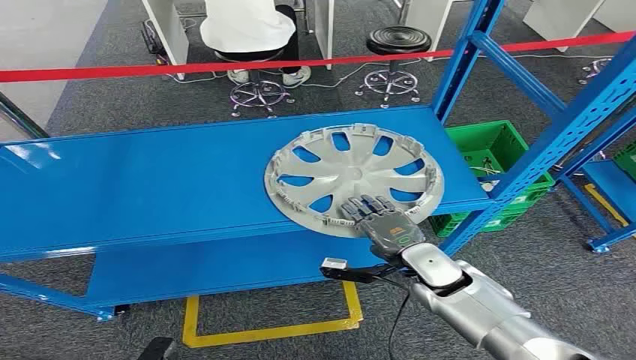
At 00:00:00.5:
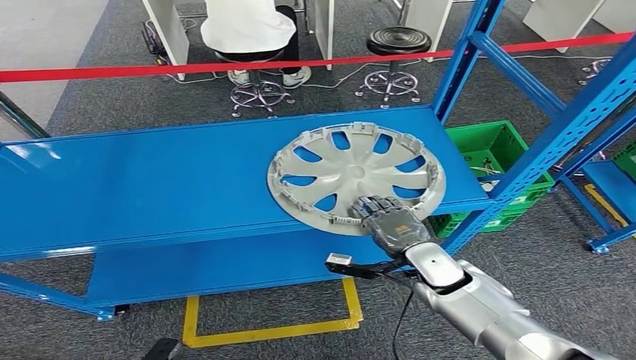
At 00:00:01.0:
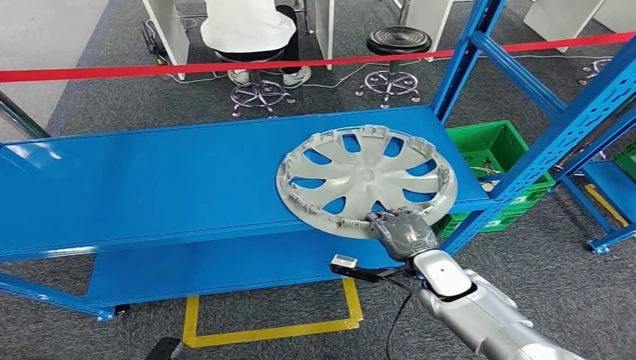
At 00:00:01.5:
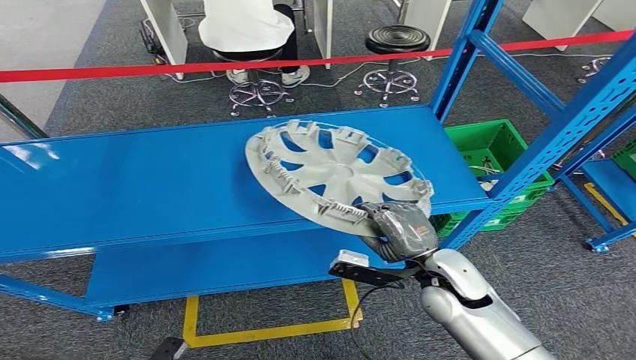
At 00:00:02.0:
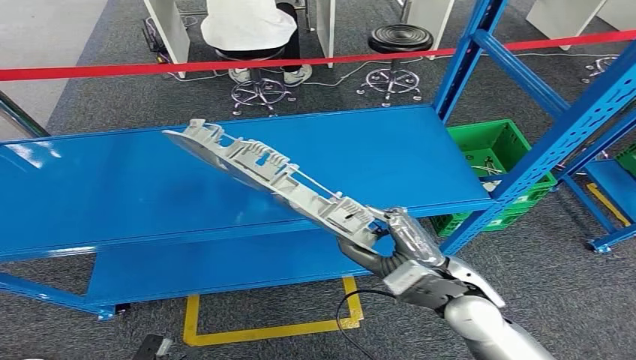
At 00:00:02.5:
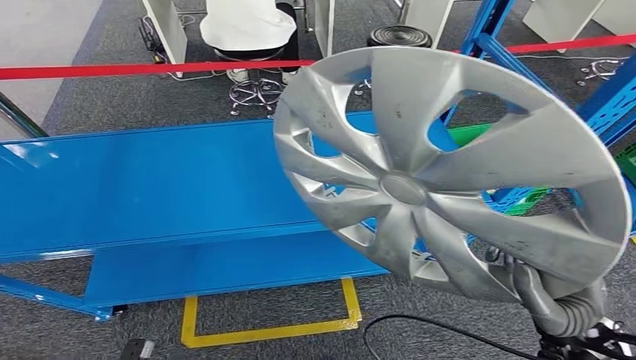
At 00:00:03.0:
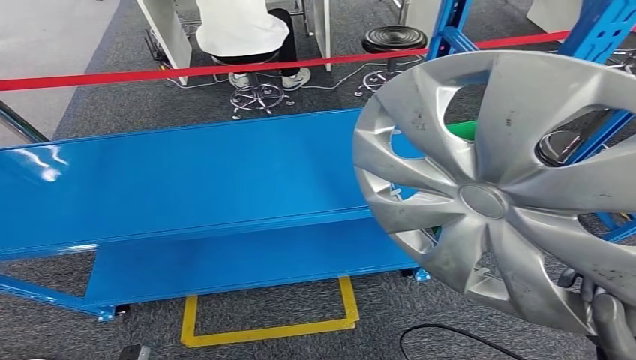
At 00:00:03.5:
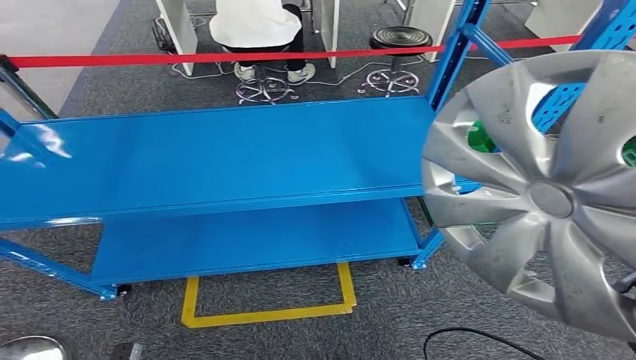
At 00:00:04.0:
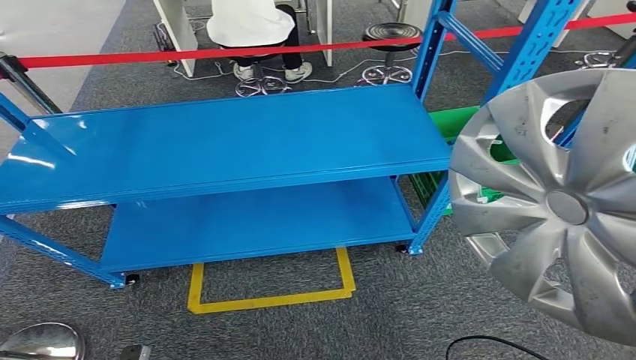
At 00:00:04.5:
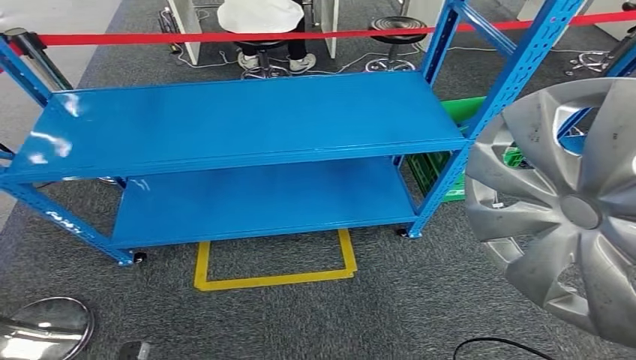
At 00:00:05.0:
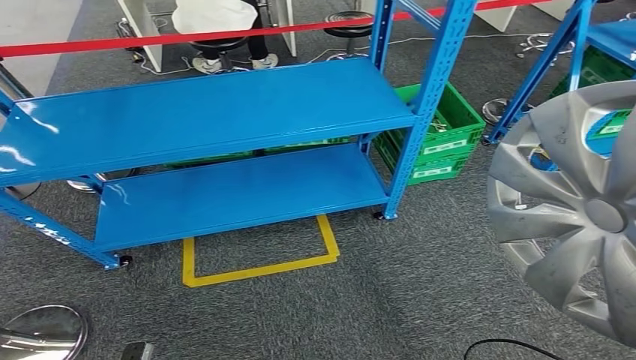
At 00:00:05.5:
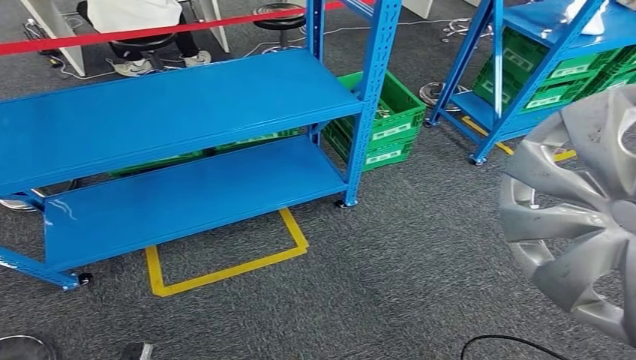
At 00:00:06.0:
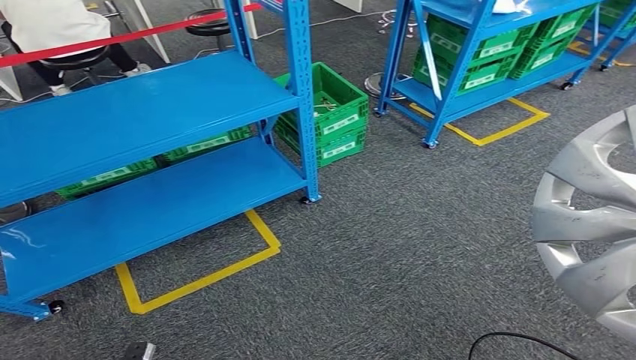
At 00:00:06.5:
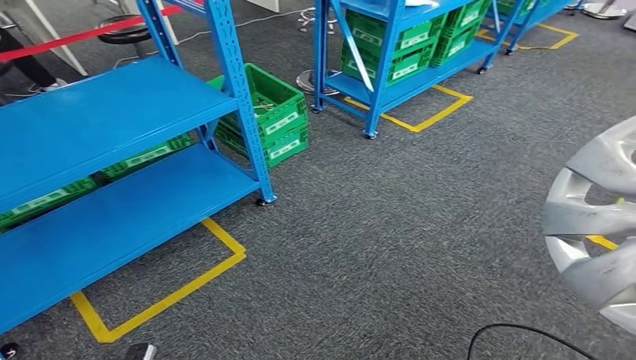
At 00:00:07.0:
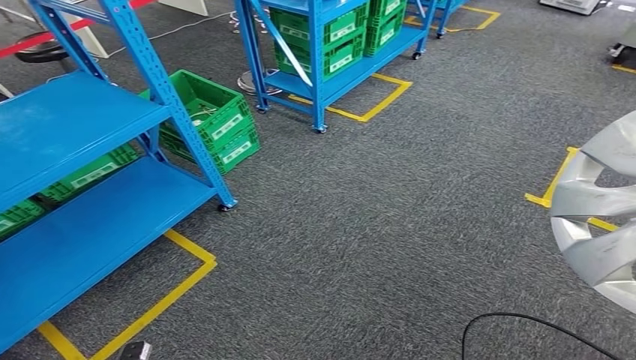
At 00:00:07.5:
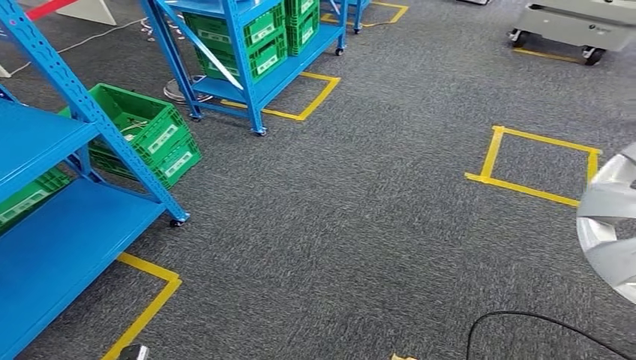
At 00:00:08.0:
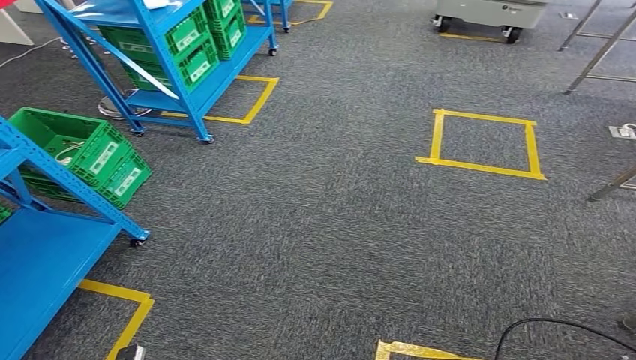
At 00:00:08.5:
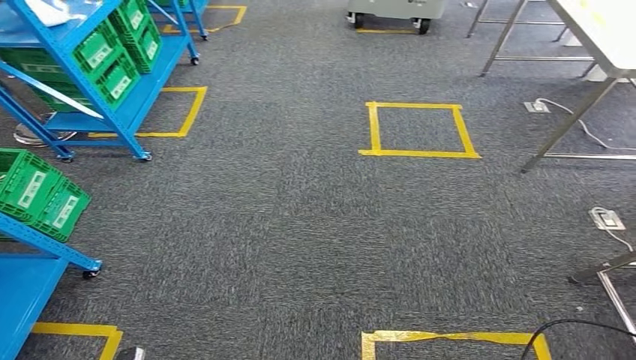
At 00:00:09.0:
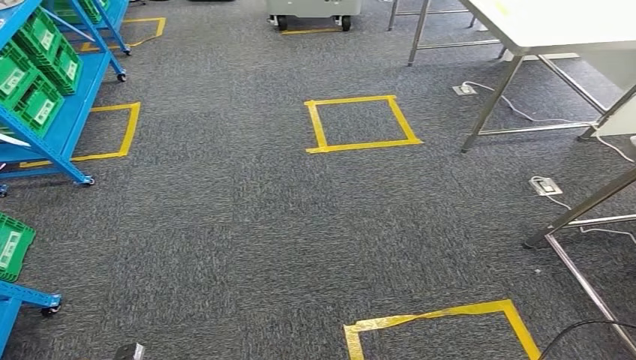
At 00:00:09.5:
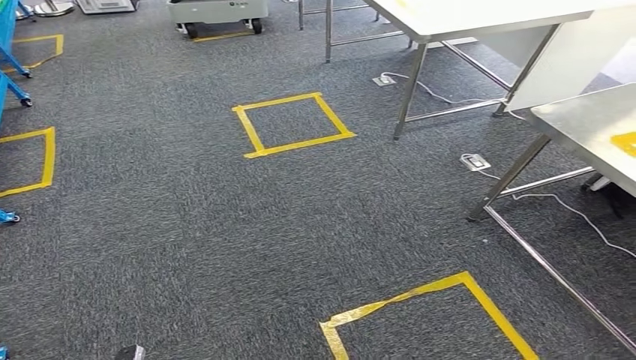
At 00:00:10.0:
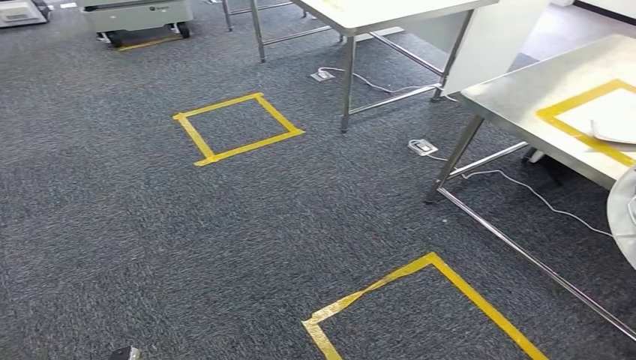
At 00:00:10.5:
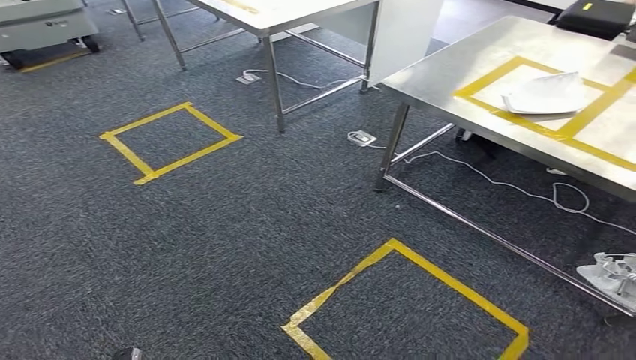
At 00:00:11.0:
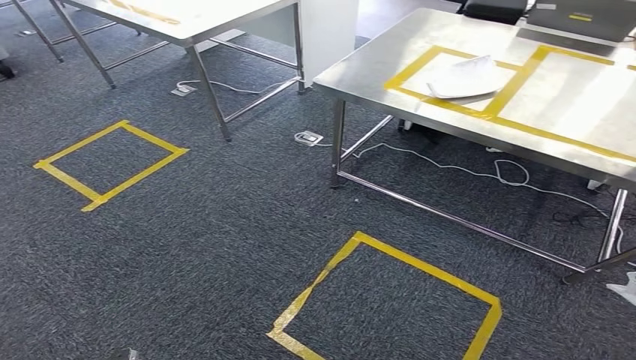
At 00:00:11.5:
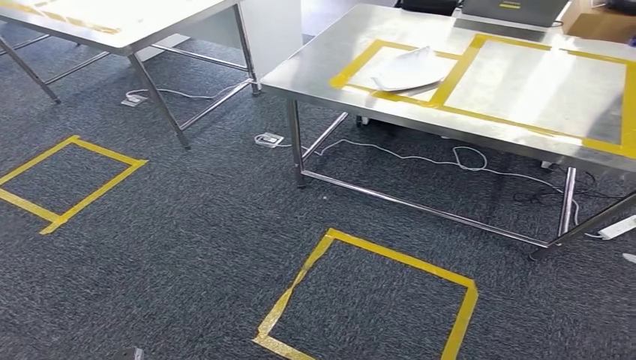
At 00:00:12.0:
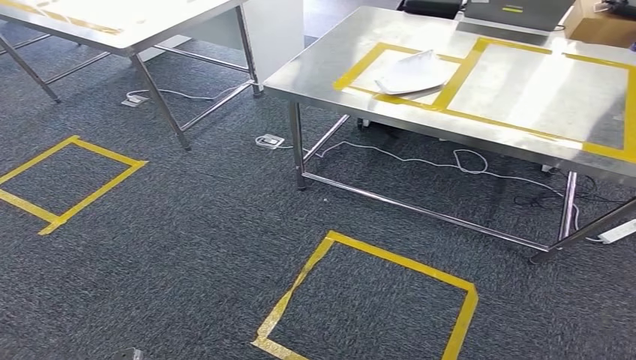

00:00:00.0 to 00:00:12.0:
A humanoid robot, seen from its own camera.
Step, 00:00:00.0 to 00:00:04.0: Pick up the small parts from the shelf.

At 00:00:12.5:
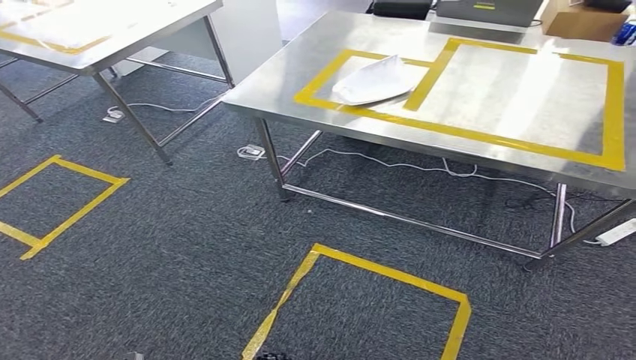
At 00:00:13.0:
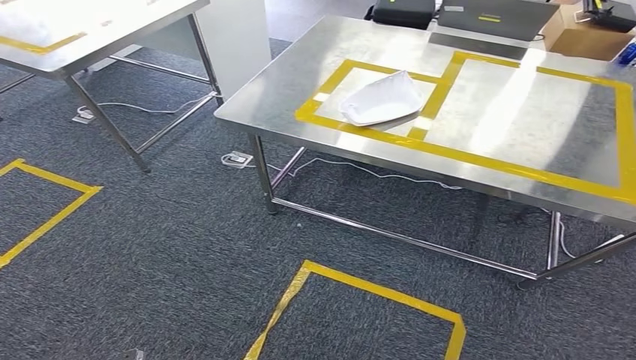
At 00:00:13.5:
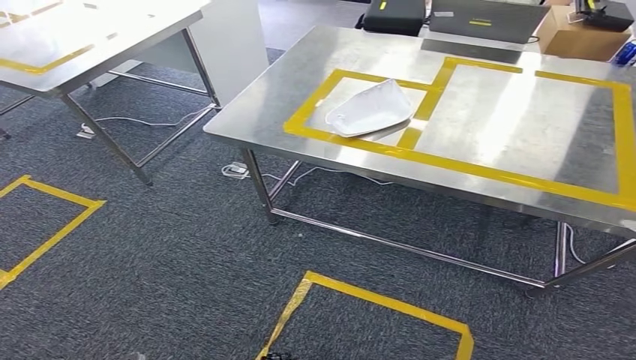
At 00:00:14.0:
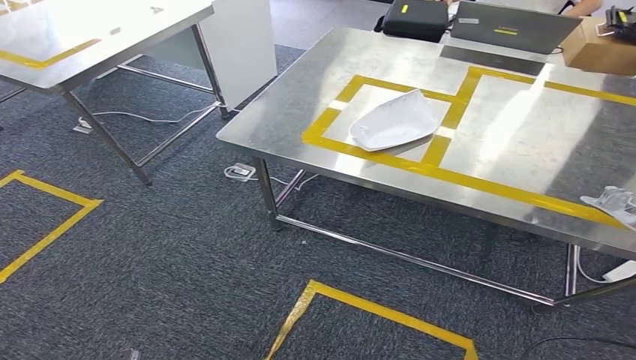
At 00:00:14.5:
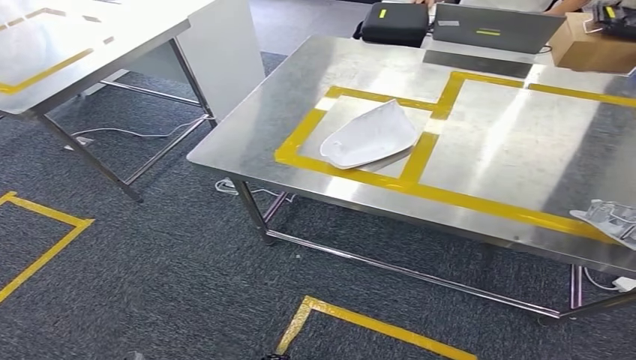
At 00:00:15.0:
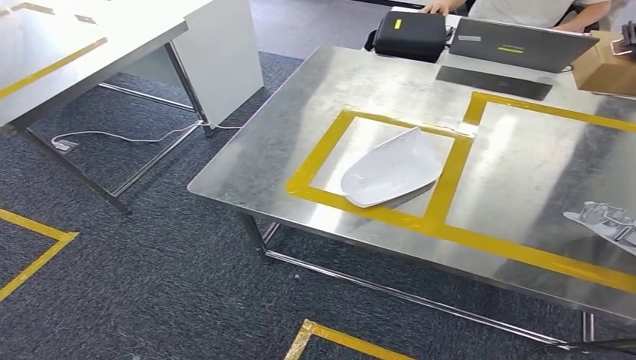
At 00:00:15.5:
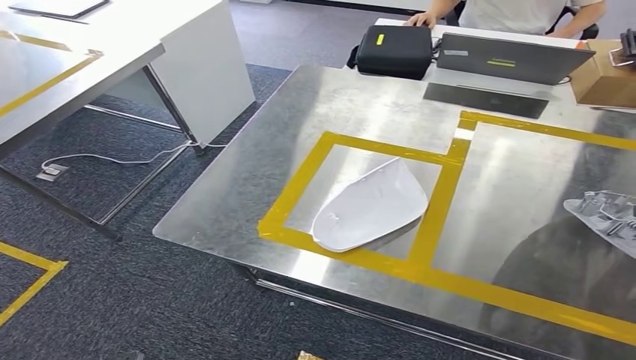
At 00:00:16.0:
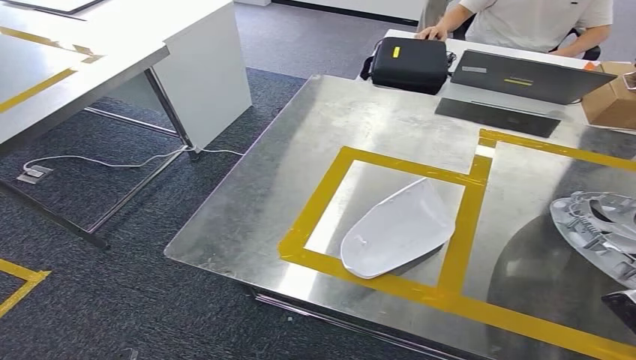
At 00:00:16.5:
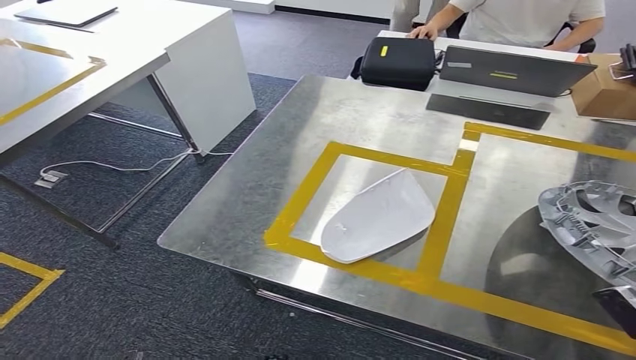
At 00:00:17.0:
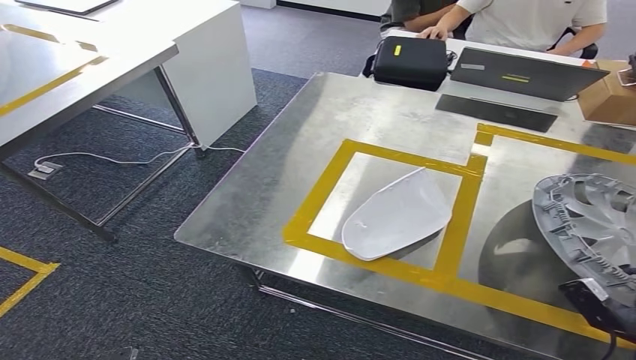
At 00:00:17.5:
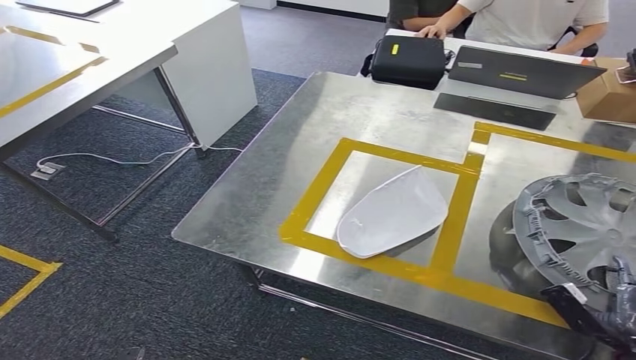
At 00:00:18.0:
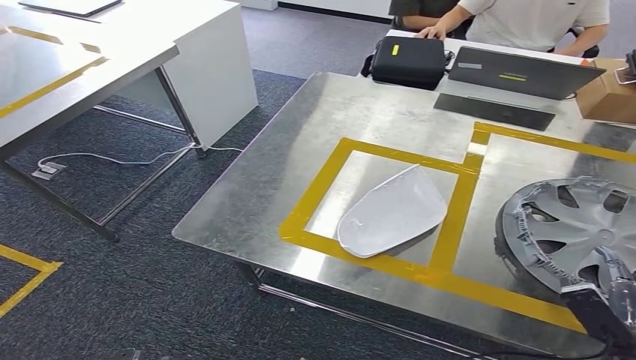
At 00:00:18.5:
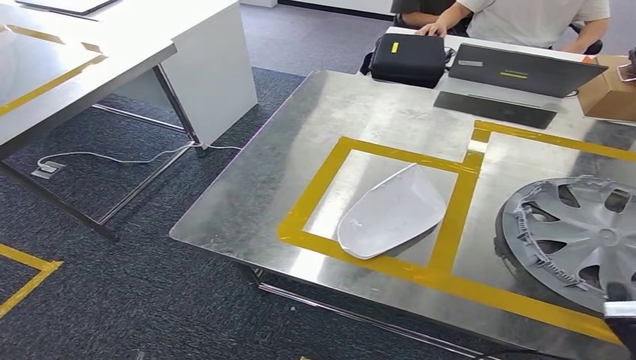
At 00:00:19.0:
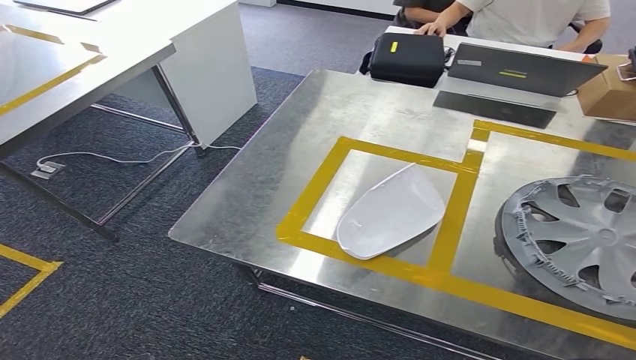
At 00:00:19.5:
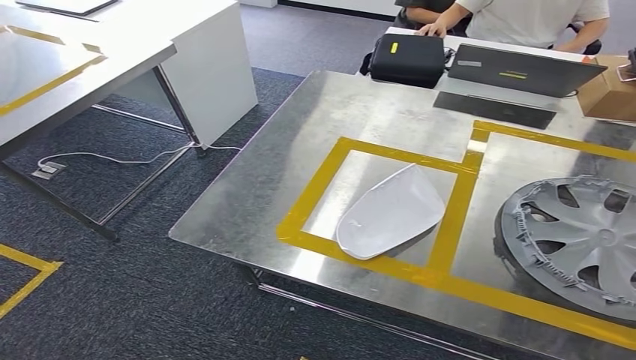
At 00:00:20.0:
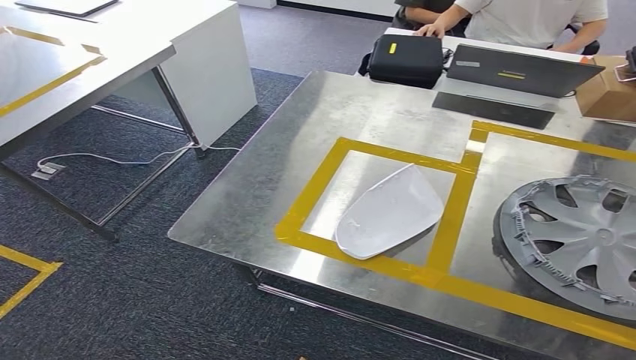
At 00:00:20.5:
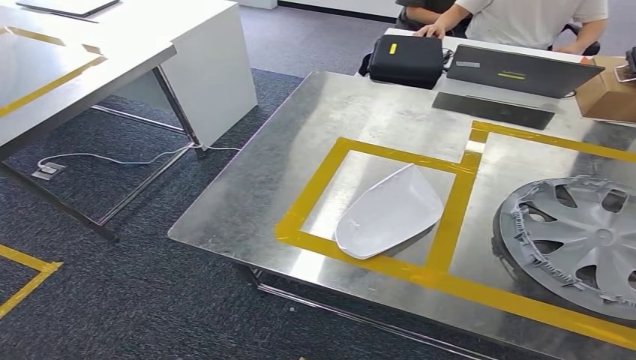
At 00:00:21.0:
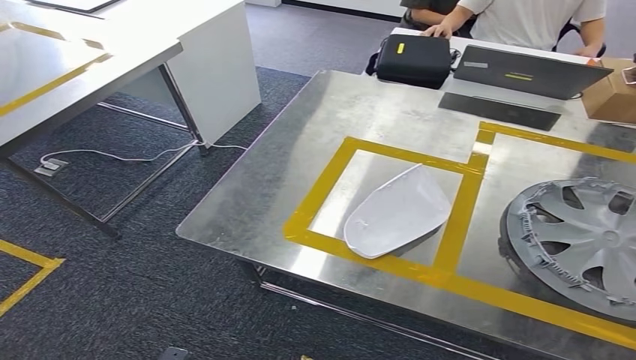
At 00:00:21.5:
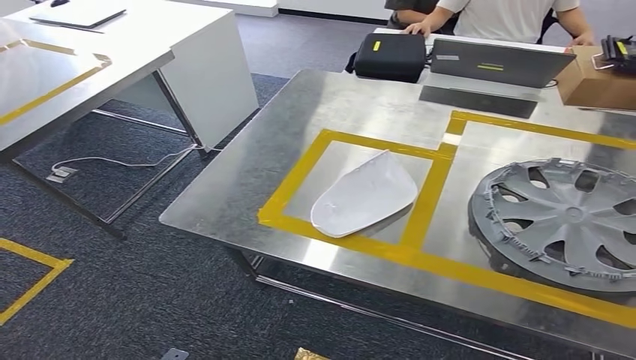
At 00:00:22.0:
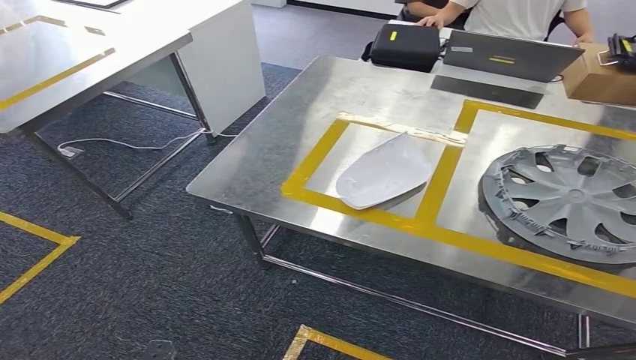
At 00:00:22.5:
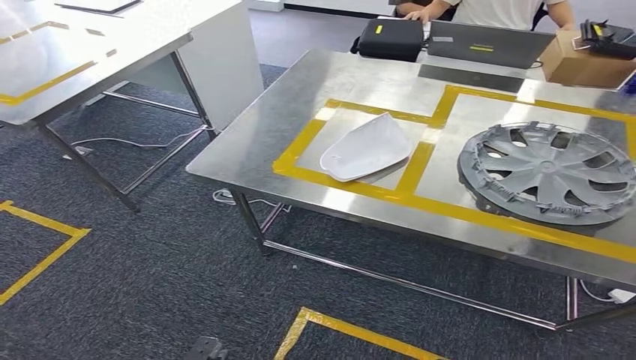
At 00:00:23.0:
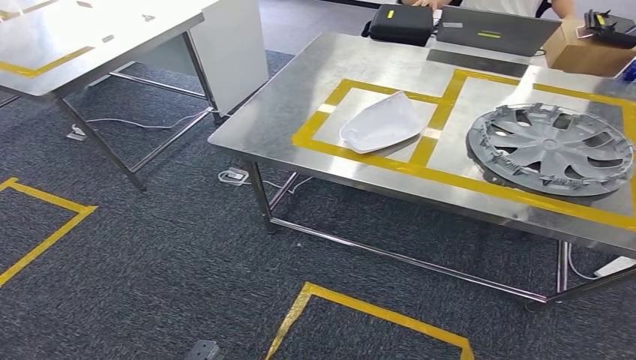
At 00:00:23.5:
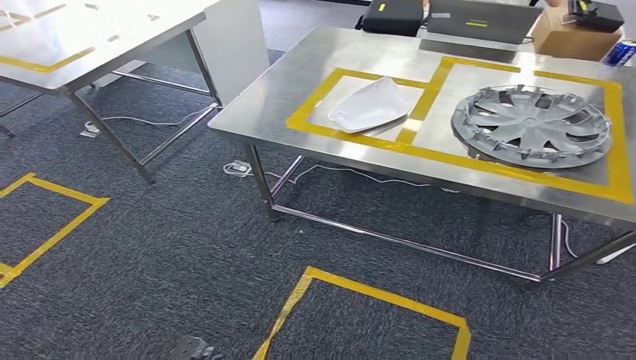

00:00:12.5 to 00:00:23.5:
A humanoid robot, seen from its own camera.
Step, 00:00:13.0 to 00:00:19.5: Insert the small parts into the corresponding slots on the workbench.
00:00:18.0 to 00:00:20.0: The left hand shifts approximately 5 cm to the right; the right hand travels backward by approximately 20 cm, and moves some 20 cm upward and comes back.
